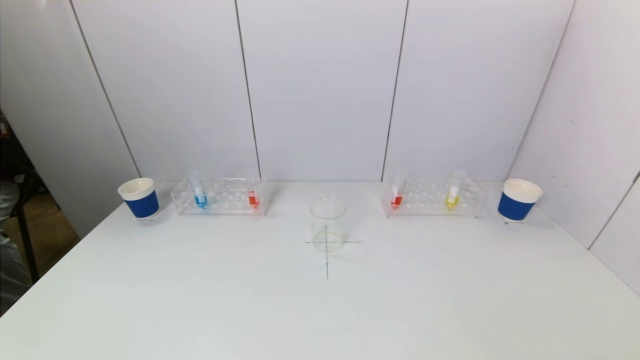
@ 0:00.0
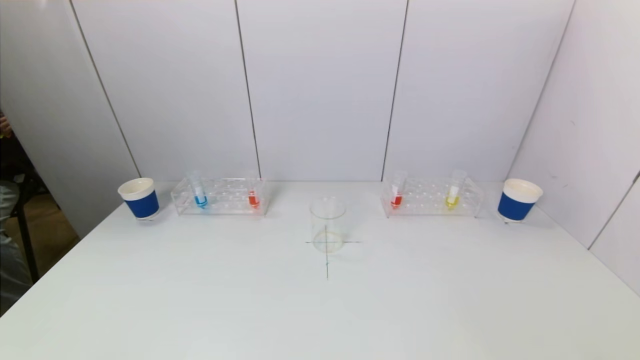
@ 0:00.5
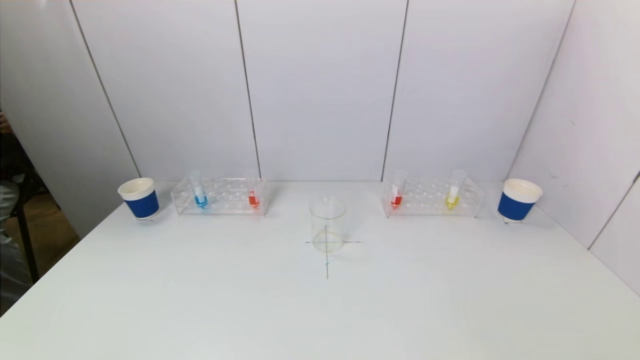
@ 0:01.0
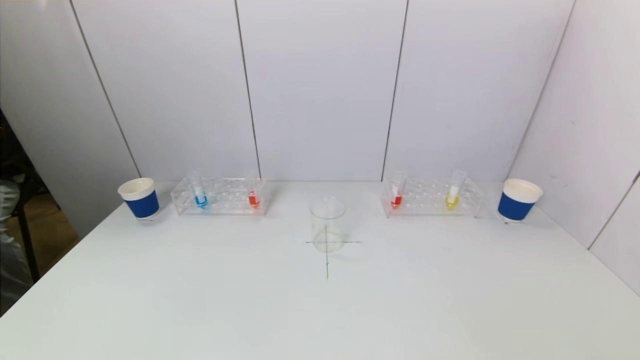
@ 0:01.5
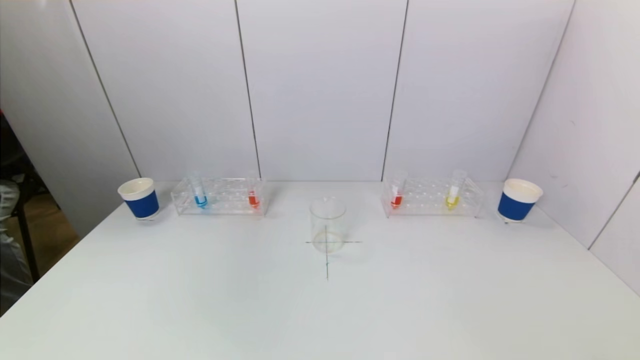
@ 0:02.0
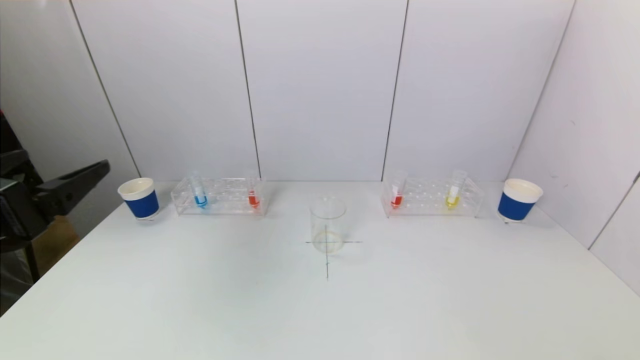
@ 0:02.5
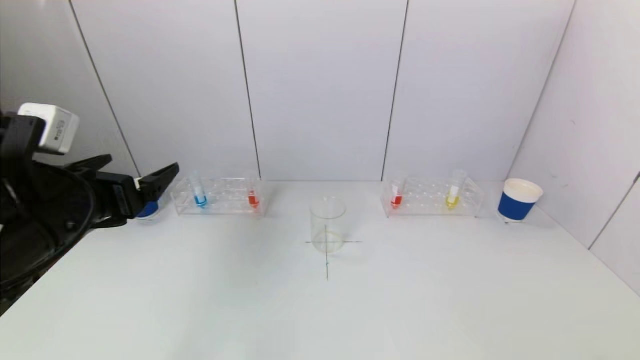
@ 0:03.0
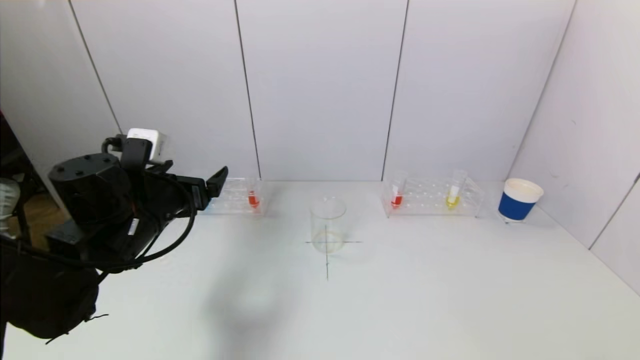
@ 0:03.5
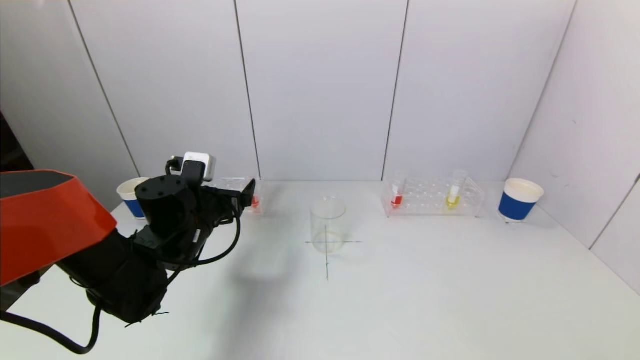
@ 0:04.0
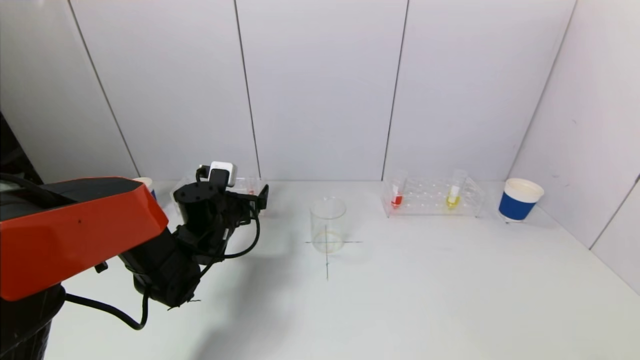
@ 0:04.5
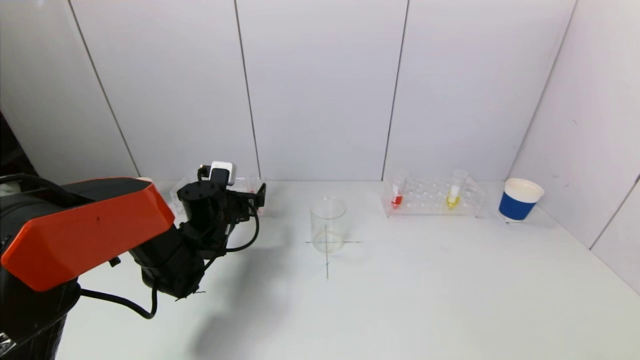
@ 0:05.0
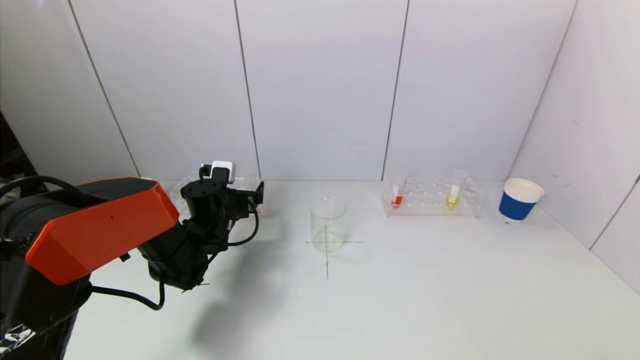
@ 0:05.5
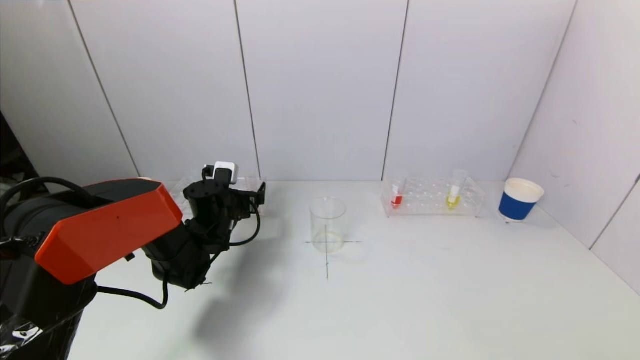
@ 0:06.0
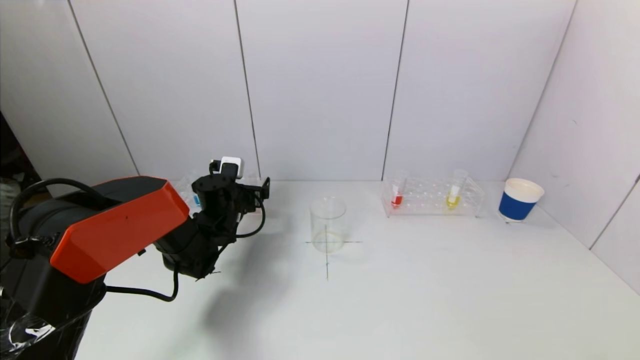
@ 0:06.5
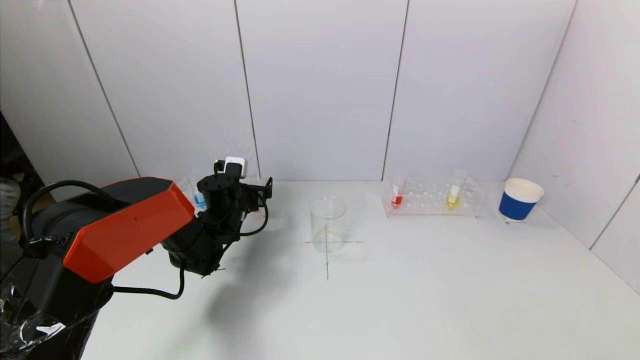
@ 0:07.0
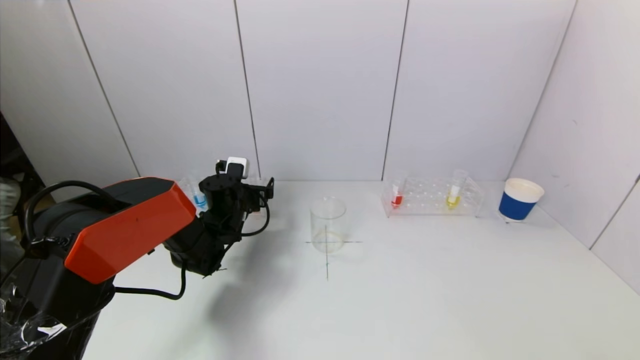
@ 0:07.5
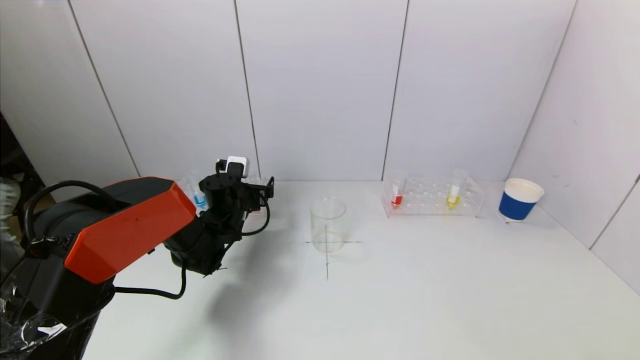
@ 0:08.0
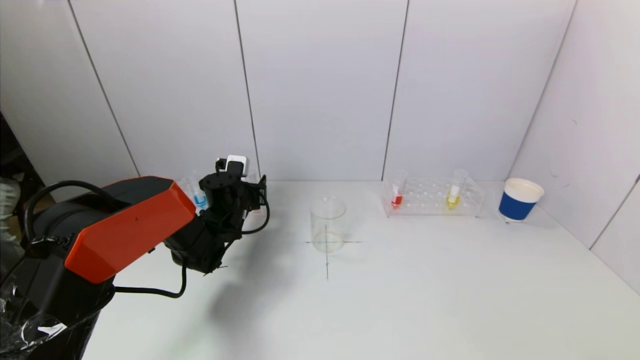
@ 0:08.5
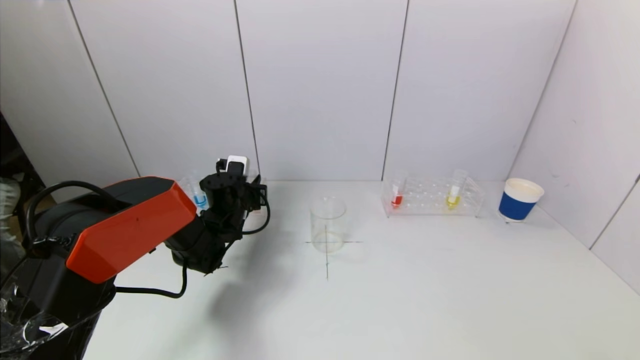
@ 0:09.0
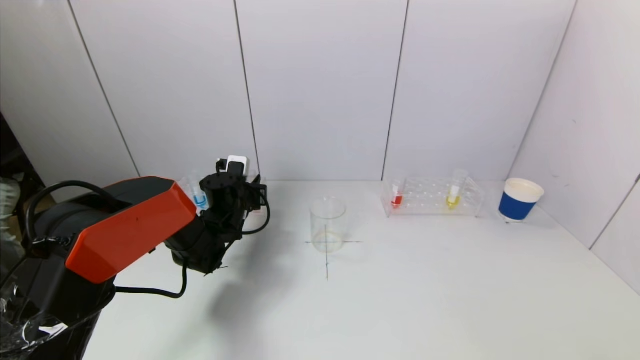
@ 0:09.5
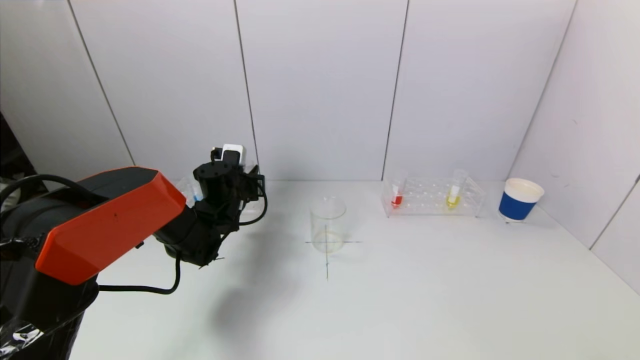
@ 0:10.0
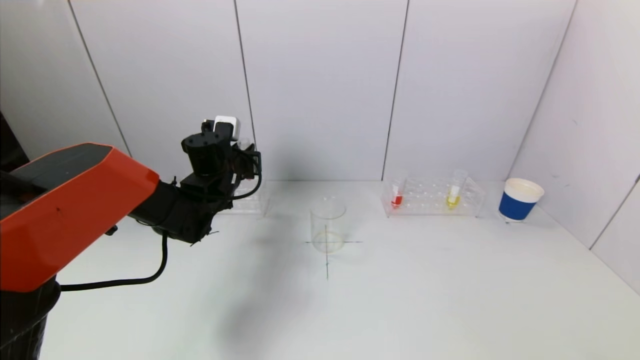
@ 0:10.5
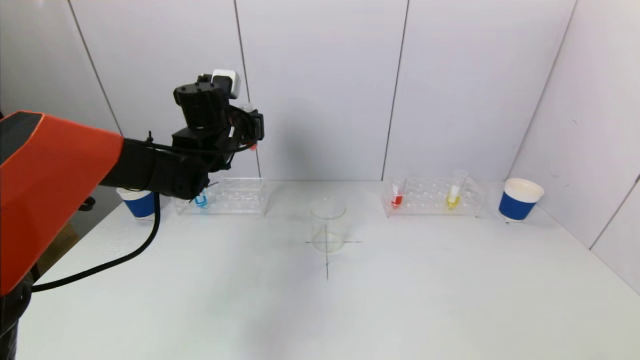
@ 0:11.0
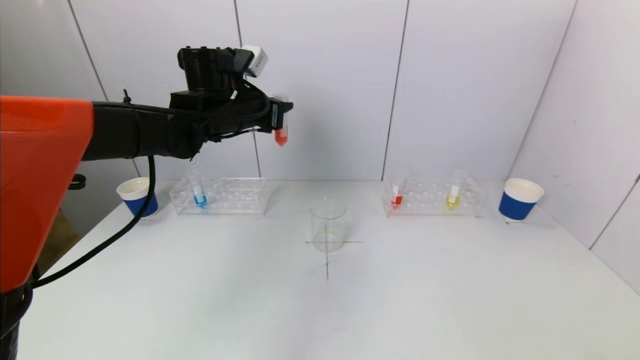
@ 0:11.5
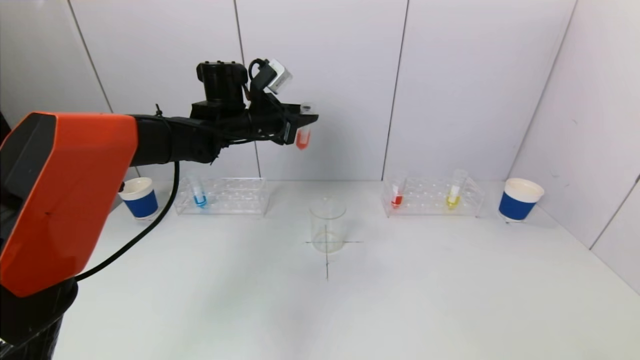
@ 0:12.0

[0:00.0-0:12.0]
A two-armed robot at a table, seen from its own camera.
Task of the whole recording: pick up a test tube with pigment on left test tube rack and a test tube with pigment on right test tube rack by grippers and pour them into the beaker.
Step, 0:00.0 to 0:09.0: Grasp the red reagent with the left gripper.
0:02.0 to 0:04.0: The left gripper travels forward and downward by some 30 cm.
0:04.0 to 0:06.0: The left gripper heads forward and downward, covering approximately 10 cm.
0:06.0 to 0:08.0: The grippers stay close to where they were, moving slightly.
0:08.0 to 0:10.0: The left gripper closes.
0:10.0 to 0:12.0: The left gripper goes about 15 cm upward.

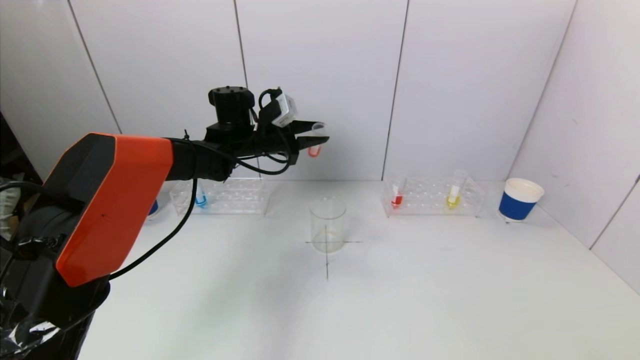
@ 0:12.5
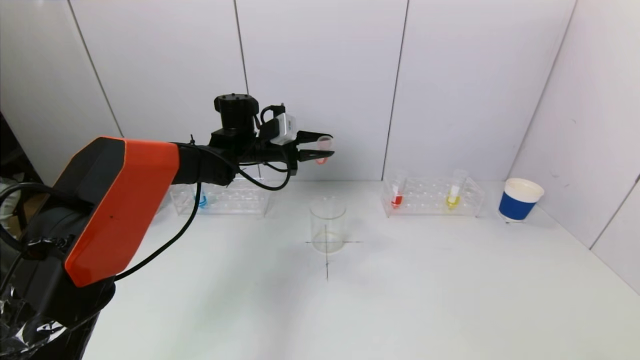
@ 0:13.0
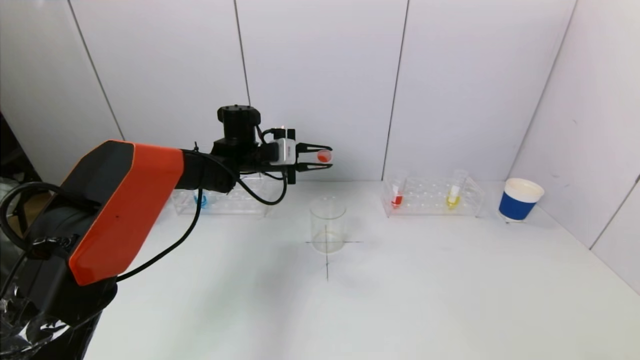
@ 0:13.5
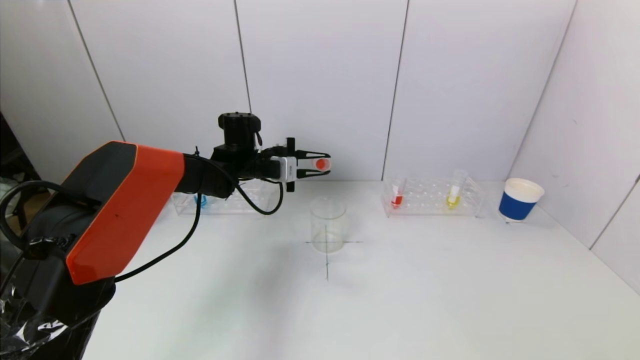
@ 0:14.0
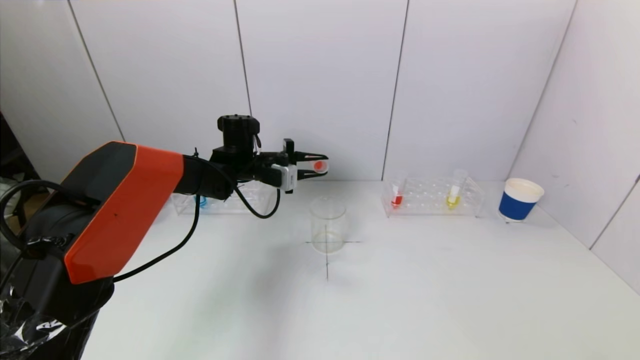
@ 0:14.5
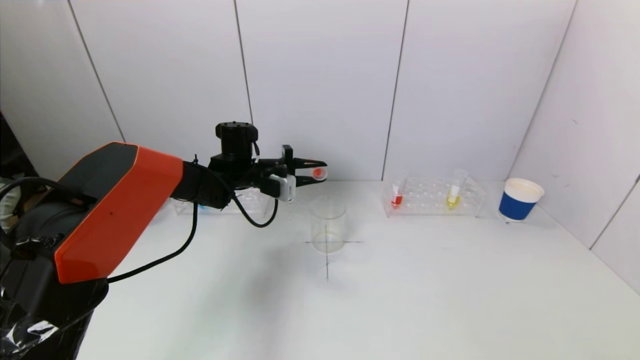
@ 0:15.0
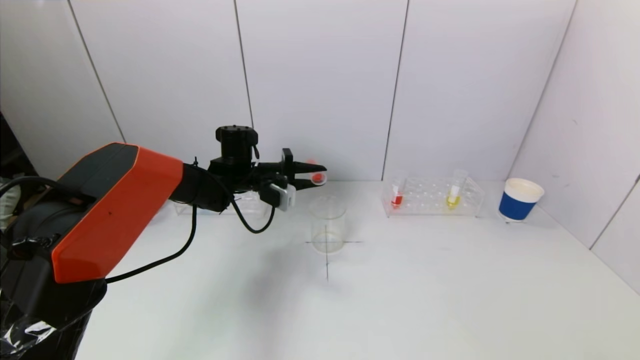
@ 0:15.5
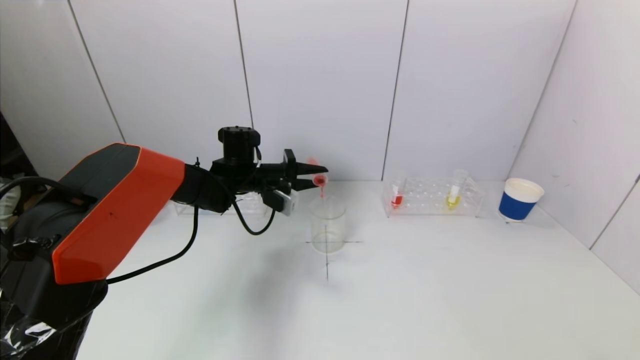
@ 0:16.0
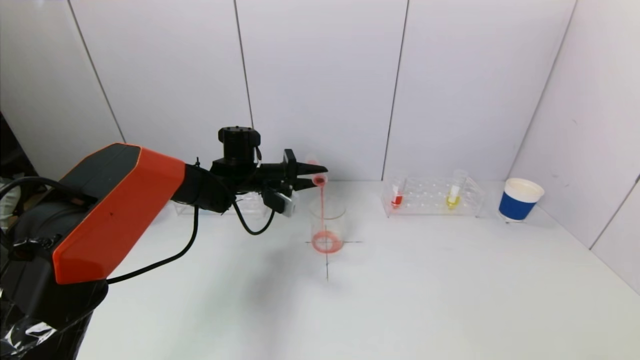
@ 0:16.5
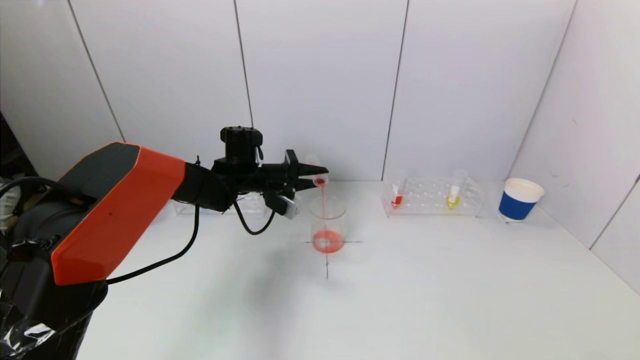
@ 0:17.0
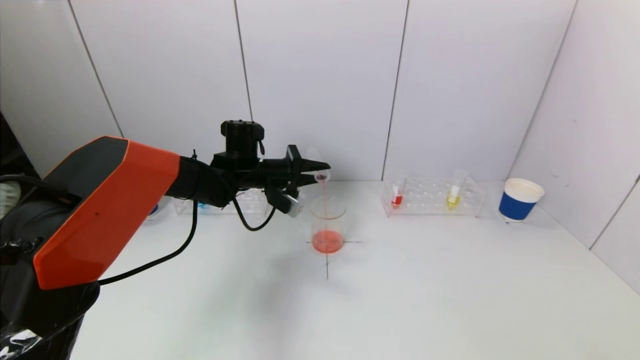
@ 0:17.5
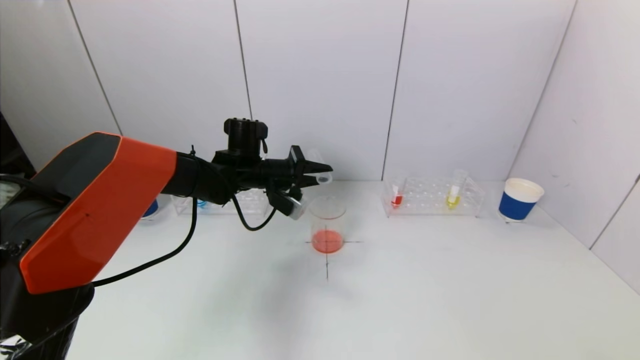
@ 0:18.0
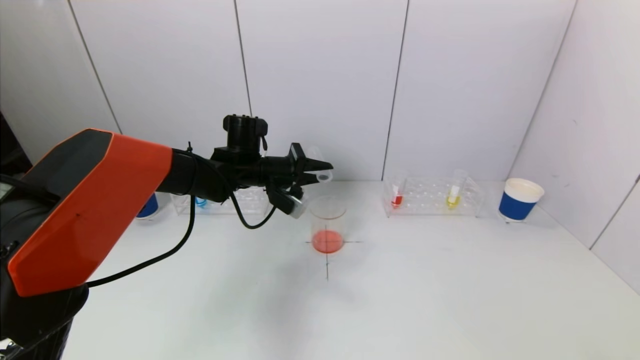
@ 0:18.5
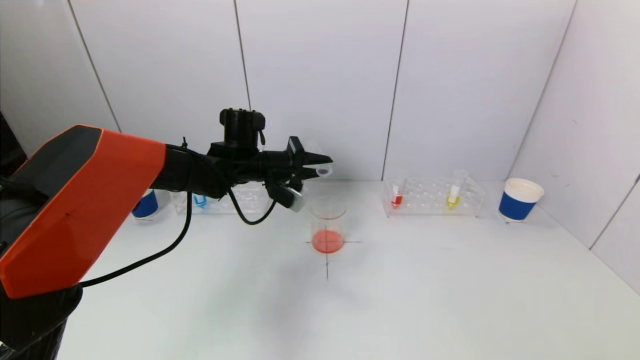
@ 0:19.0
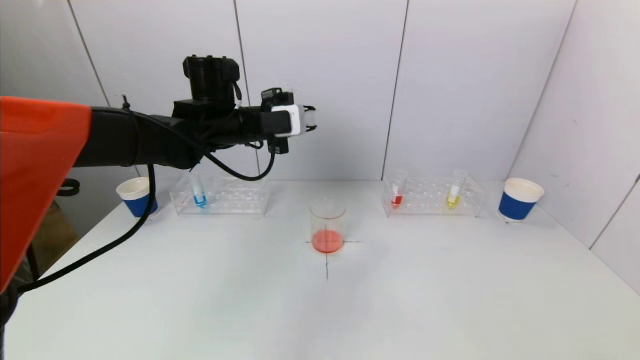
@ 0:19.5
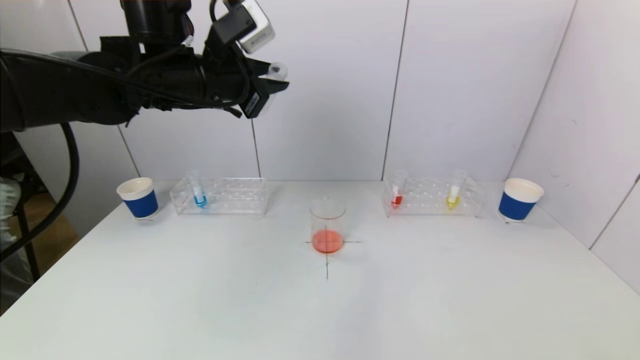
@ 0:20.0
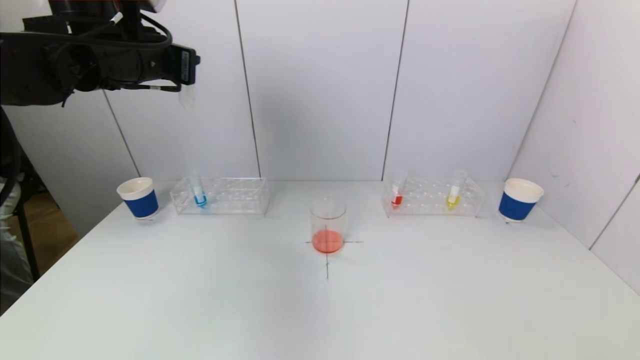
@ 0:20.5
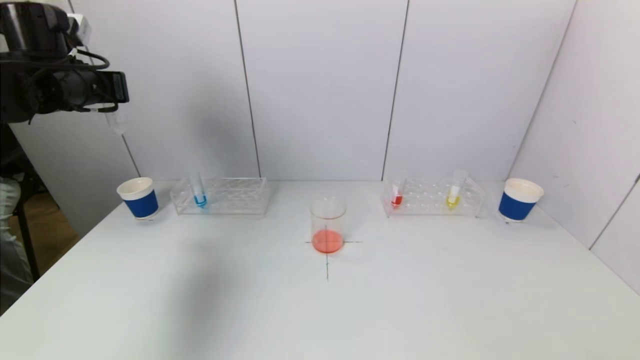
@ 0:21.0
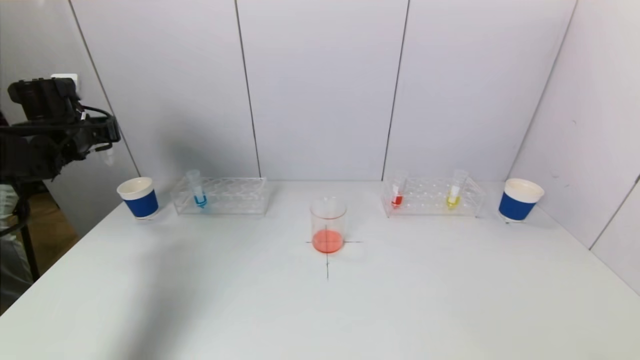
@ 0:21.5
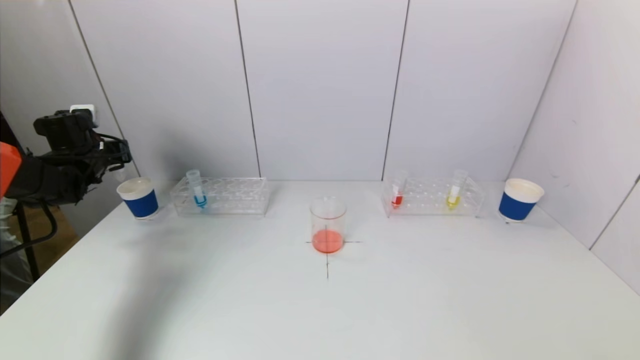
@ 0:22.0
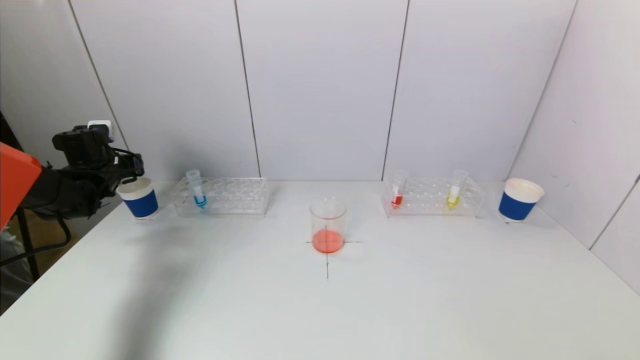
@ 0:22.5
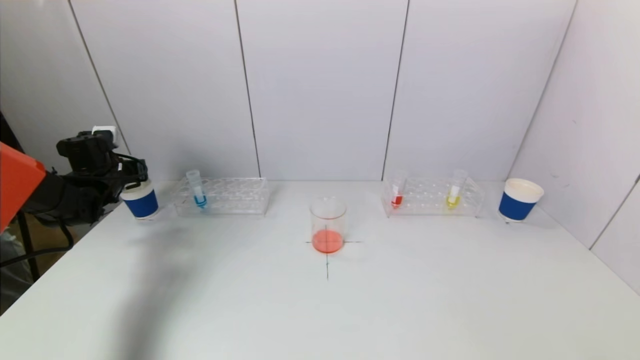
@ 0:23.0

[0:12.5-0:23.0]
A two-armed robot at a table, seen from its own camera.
Task of the whole recording: pick up a test tube with pigment on left test tube rack and a test tube with pigment on right test tube rack by grippers and pour them into the beaker.
Step, 0:12.5 to 0:18.5: Pour the red reagent into the graduated cylinder with the left gripper.
0:12.5 to 0:14.5: The left gripper moves downward, some 5 cm.
0:14.5 to 0:16.5: The grippers move only a little.
0:16.5 to 0:19.0: The grippers make only small movements.
0:19.0 to 0:21.0: The left gripper goes roughly 30 cm to the left and upward.
0:21.0 to 0:23.0: The left gripper shifts roughly 20 cm downward.
